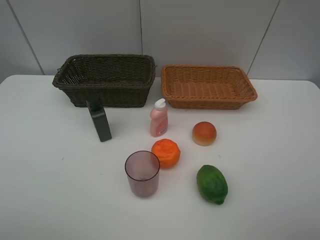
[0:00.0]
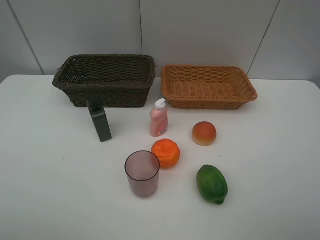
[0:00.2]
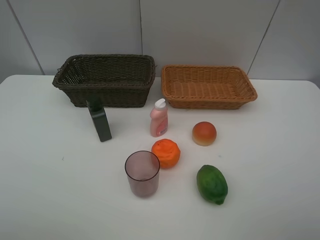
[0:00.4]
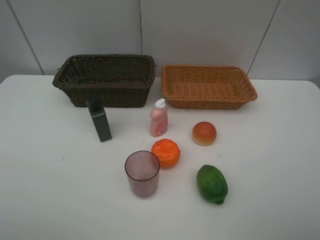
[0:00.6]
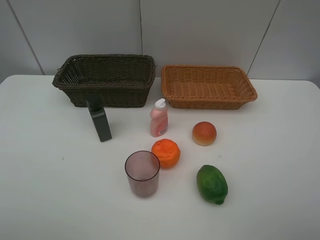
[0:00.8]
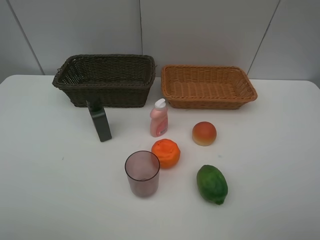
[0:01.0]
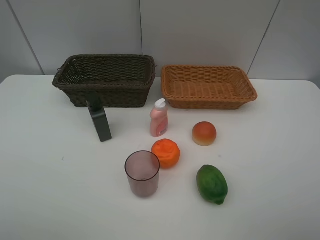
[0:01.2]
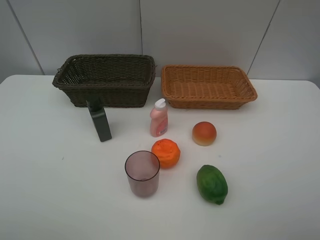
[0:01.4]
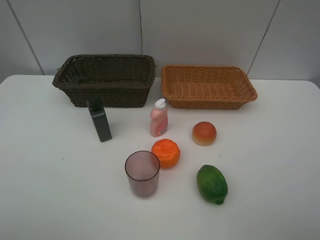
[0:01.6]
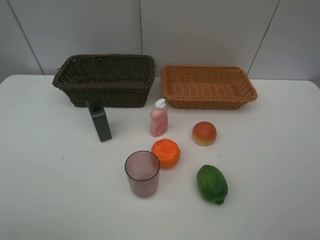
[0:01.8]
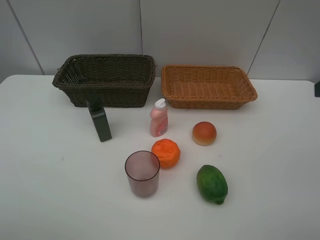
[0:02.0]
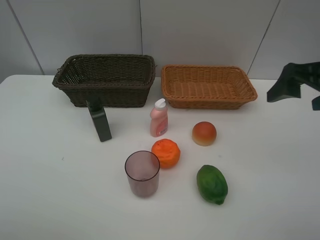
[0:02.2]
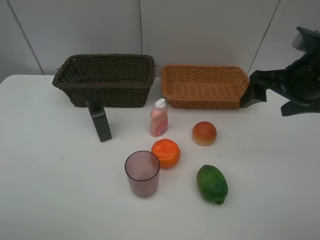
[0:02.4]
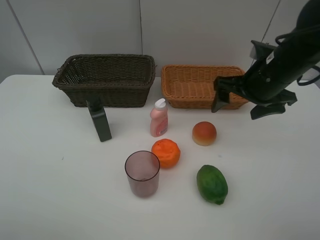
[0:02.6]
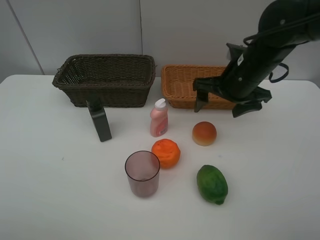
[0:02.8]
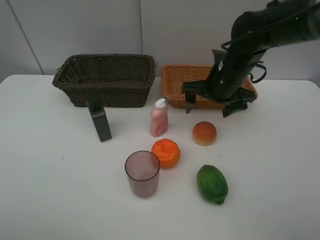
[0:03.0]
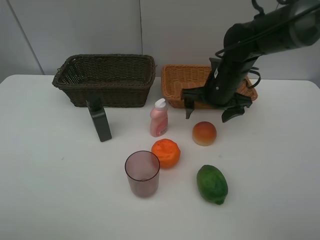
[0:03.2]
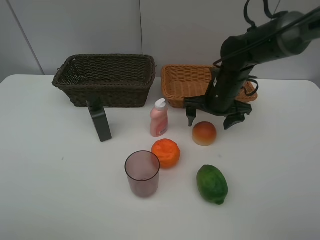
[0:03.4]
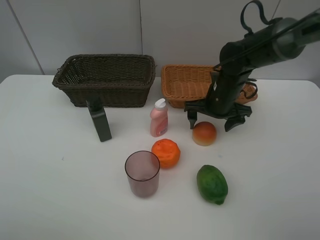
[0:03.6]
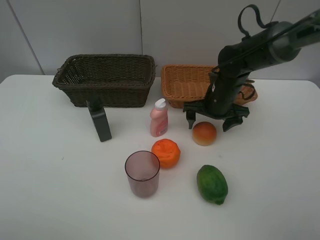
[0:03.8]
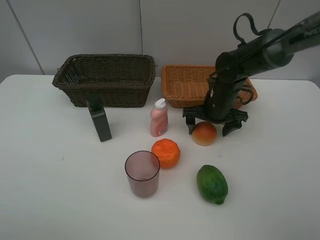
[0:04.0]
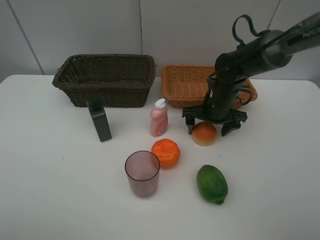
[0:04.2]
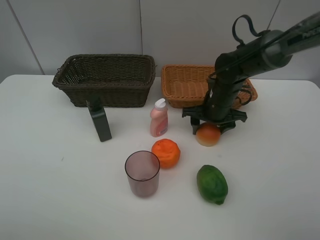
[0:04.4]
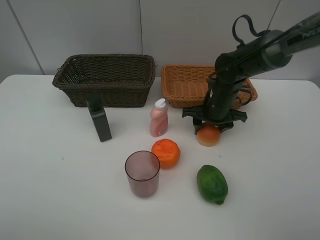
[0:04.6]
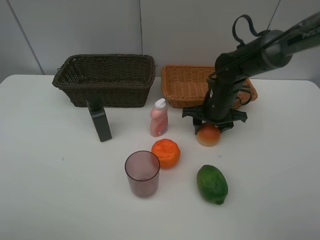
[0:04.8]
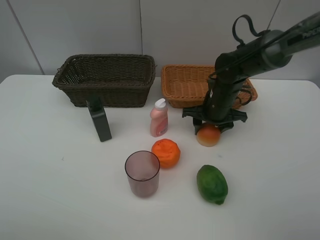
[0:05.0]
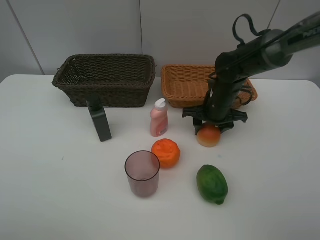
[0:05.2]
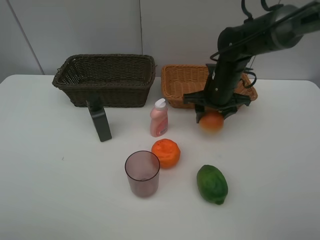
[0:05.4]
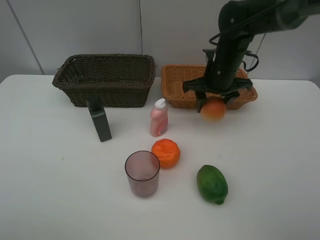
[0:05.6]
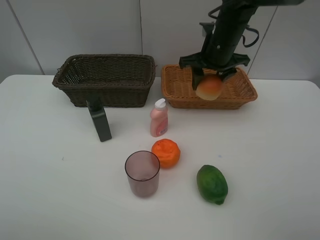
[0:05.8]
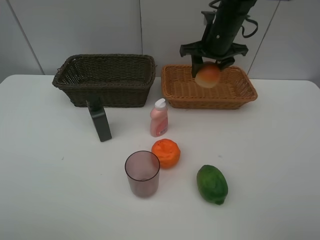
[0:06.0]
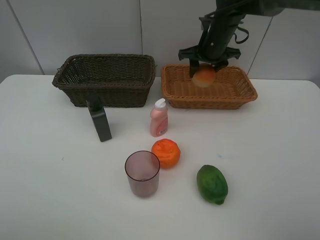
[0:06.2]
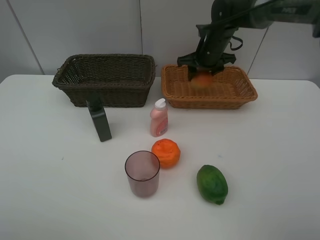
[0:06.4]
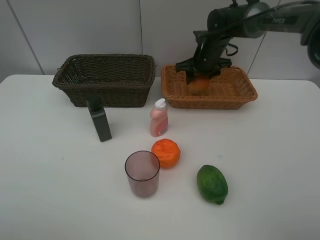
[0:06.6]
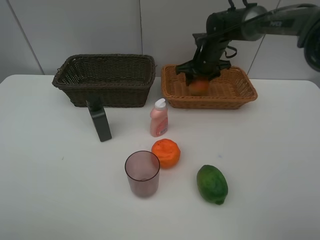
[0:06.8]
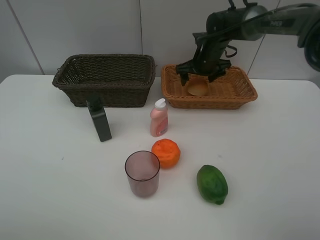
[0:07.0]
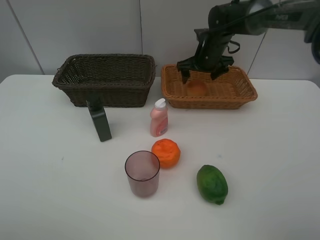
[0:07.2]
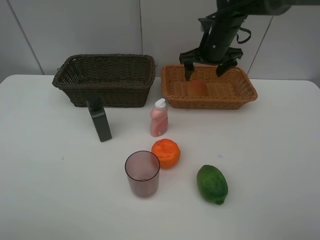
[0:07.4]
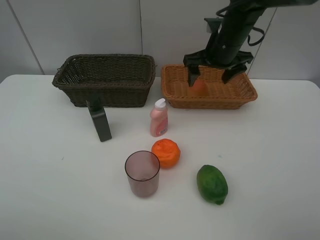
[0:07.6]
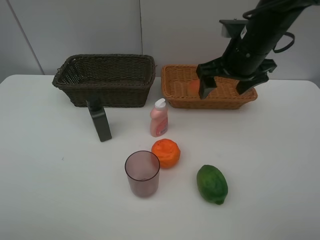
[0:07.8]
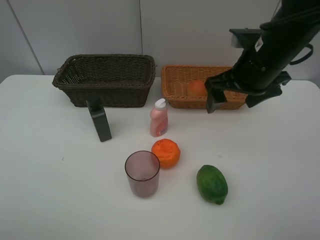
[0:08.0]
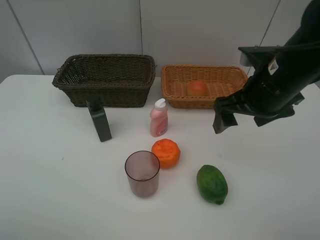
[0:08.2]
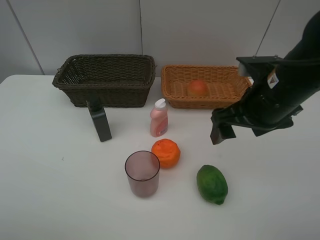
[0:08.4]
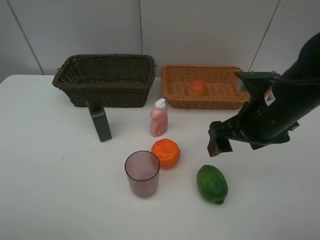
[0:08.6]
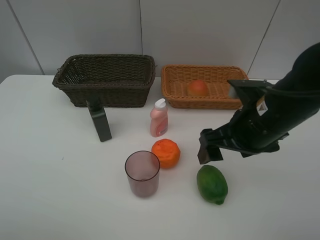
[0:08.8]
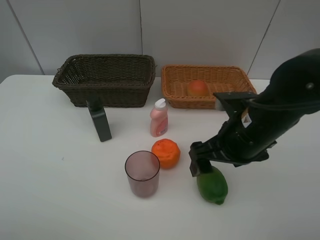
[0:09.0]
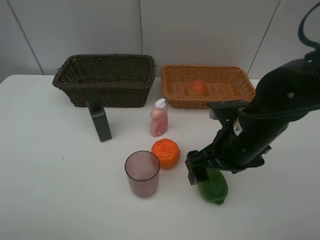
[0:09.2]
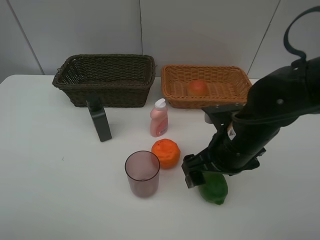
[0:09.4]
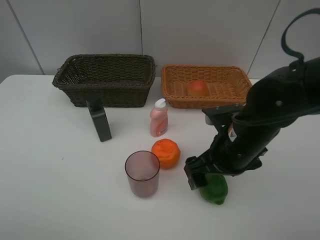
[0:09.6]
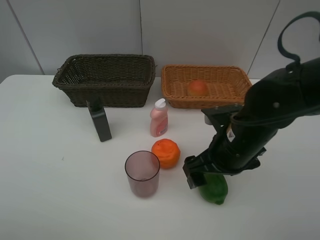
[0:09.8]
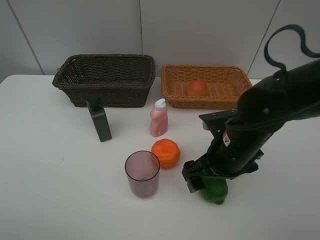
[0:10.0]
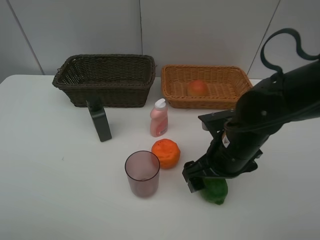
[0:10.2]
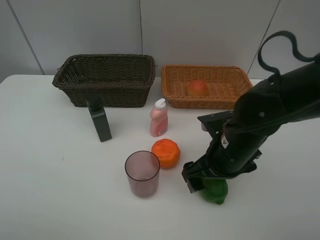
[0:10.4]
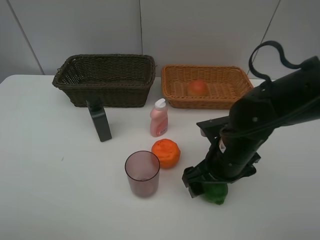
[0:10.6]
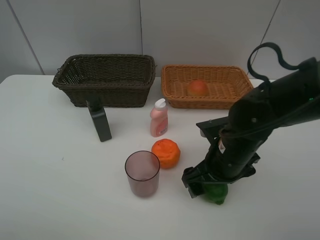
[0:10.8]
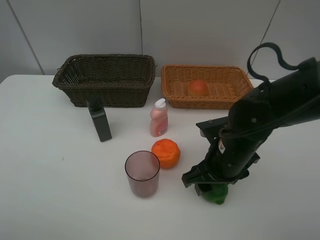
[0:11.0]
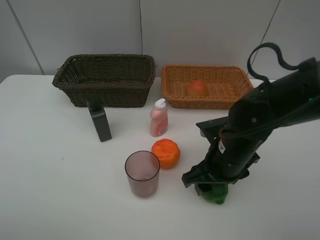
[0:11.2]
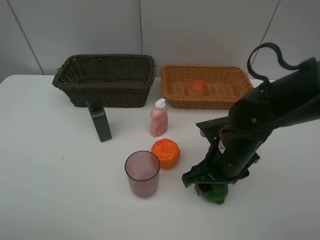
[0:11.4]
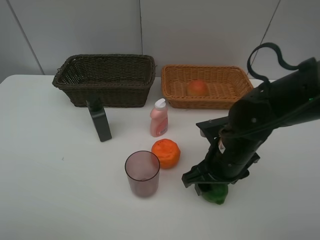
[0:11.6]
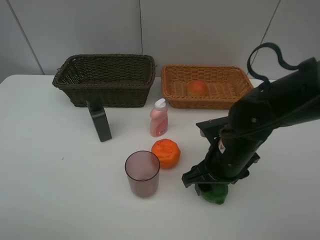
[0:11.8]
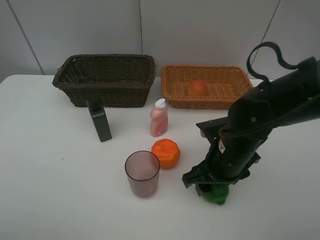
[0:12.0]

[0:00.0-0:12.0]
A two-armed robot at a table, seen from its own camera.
Task of the whole recording: place multiple objects separately in different baskets.
Step, 0:00.0 to 0:05.4: Pick up the bread with right gripper.
Step, 0:05.6 to 0:07.4: Place the bread in the light basket with right gripper.
0:01.6 to 0:03.0: The right gripper moves forward, to the left and downward, about 35 cm.
0:03.0 to 0:04.4: The right gripper heads downward, covering some 10 cm, and closes its fingers.
0:04.4 to 0:06.0: The right gripper is displaced upward and forward by roughly 15 cm.
0:06.0 to 0:07.6: The right gripper opens up.
0:07.6 to 0:09.0: The right gripper is displaced backward by about 20 cm.
0:09.0 to 0:10.4: The grippers make only small movements.
0:10.4 to 0:12.0: The right gripper closes up.

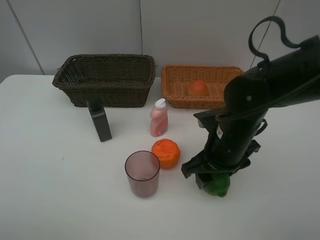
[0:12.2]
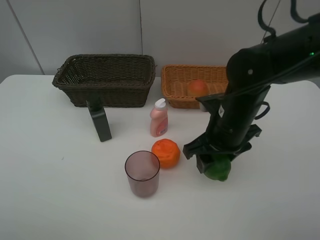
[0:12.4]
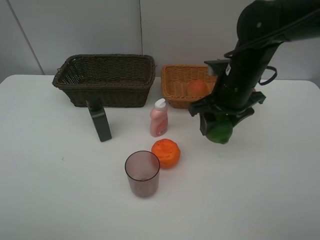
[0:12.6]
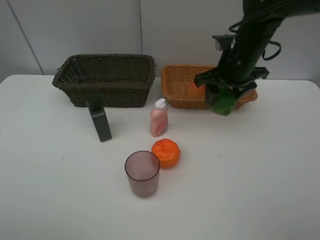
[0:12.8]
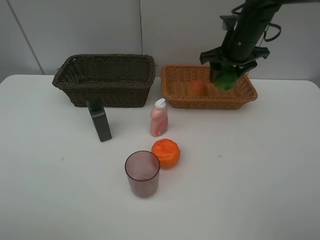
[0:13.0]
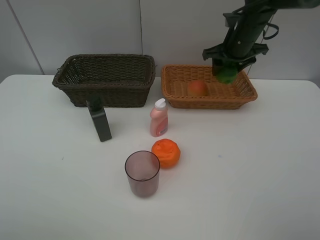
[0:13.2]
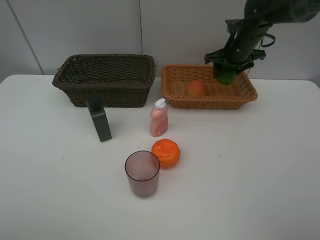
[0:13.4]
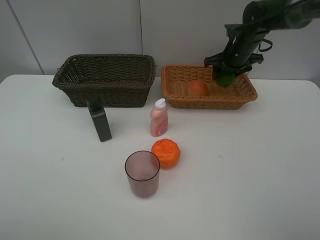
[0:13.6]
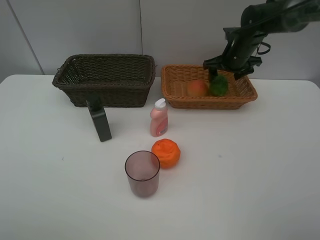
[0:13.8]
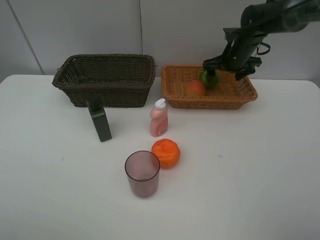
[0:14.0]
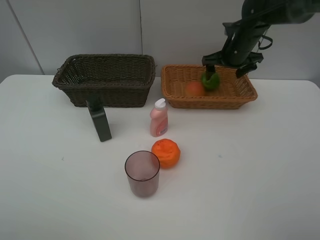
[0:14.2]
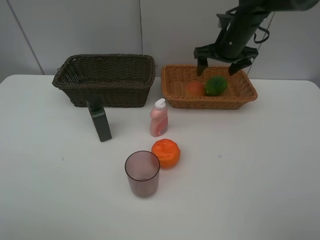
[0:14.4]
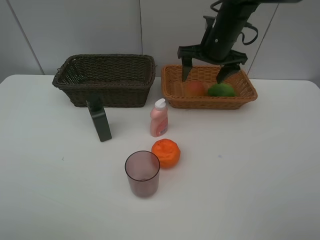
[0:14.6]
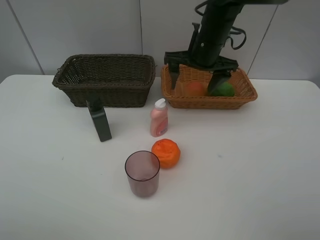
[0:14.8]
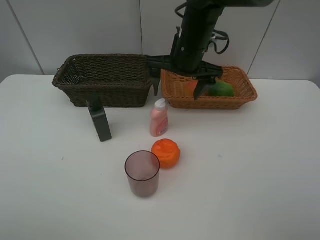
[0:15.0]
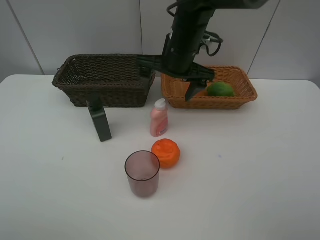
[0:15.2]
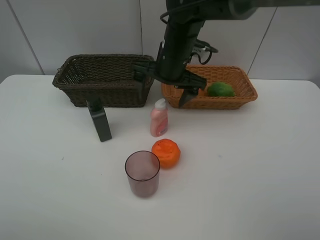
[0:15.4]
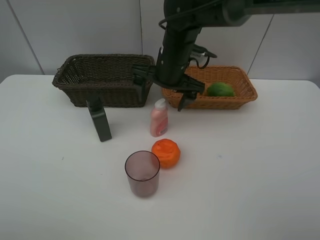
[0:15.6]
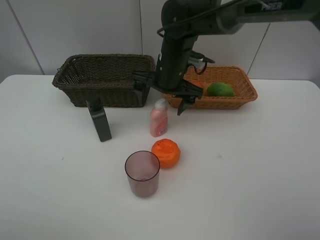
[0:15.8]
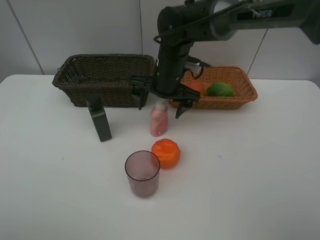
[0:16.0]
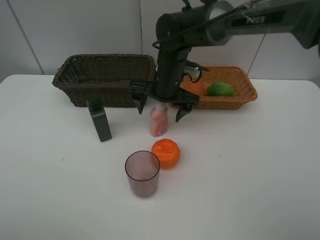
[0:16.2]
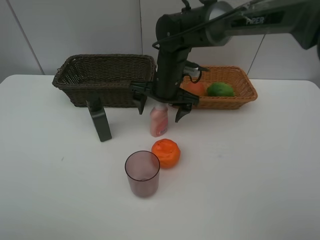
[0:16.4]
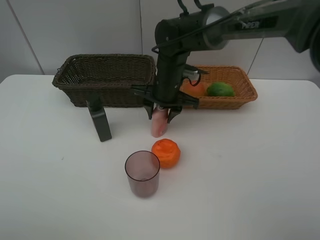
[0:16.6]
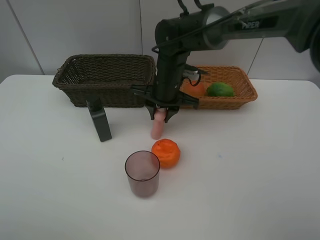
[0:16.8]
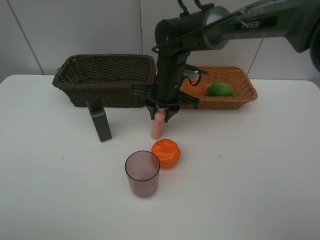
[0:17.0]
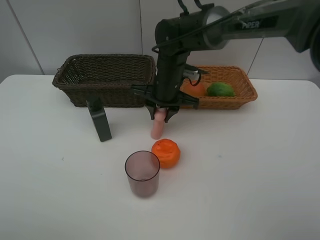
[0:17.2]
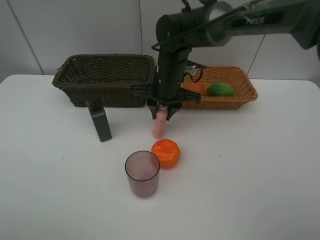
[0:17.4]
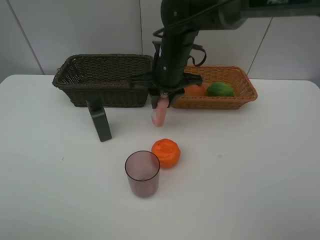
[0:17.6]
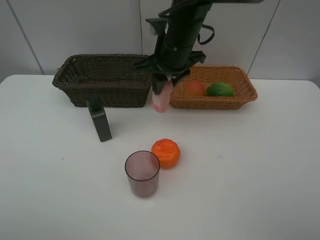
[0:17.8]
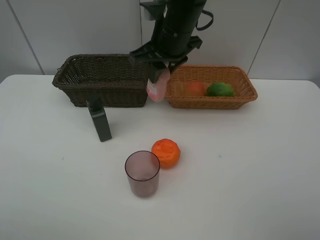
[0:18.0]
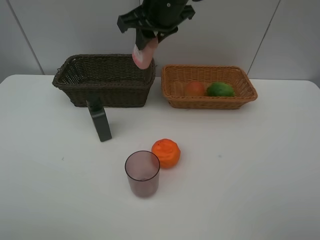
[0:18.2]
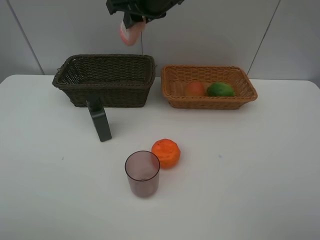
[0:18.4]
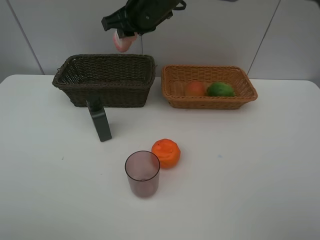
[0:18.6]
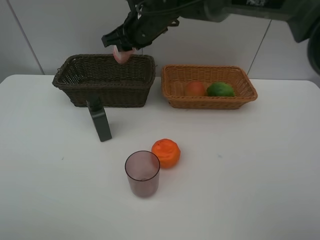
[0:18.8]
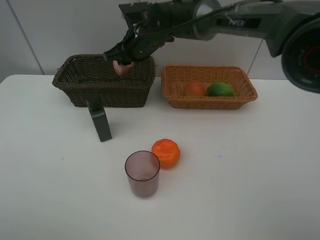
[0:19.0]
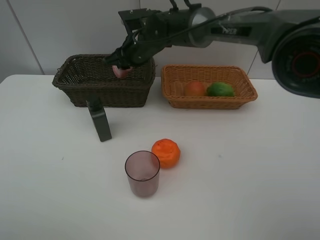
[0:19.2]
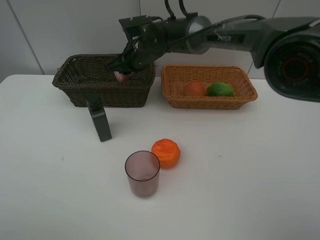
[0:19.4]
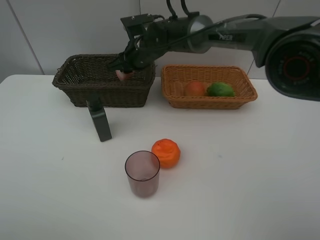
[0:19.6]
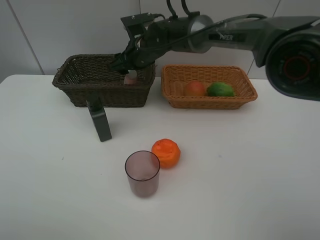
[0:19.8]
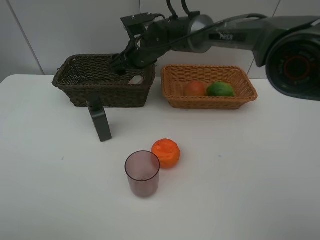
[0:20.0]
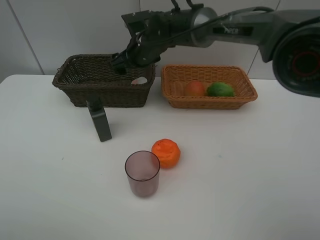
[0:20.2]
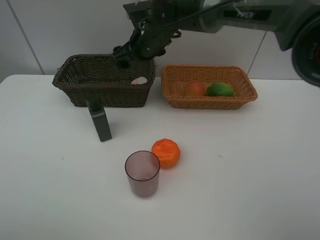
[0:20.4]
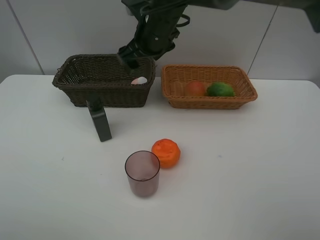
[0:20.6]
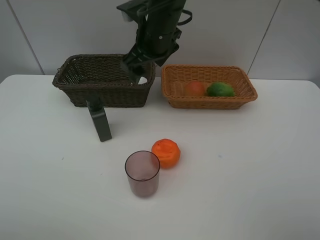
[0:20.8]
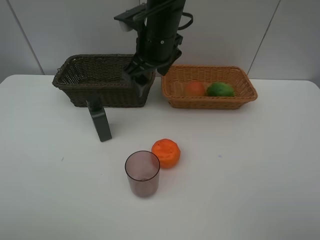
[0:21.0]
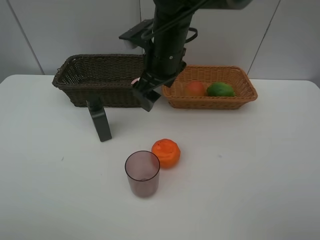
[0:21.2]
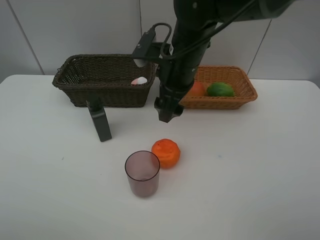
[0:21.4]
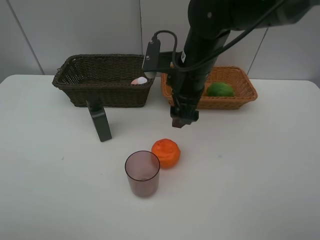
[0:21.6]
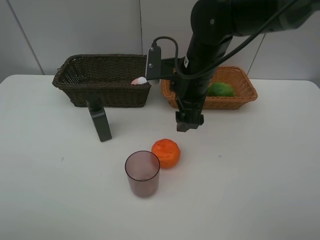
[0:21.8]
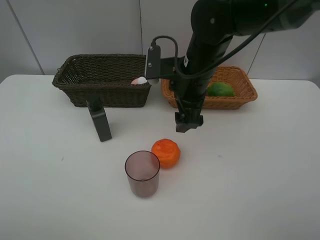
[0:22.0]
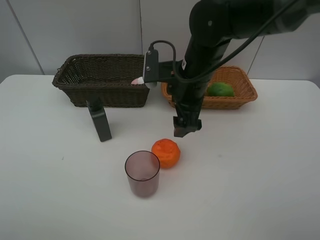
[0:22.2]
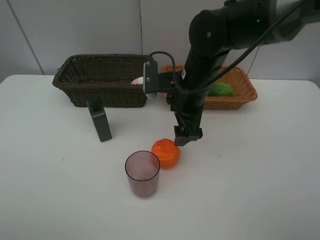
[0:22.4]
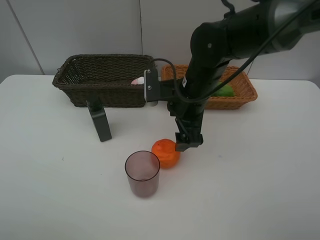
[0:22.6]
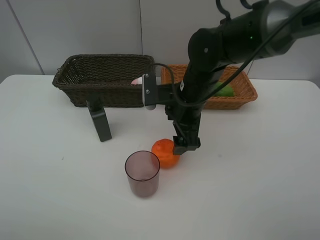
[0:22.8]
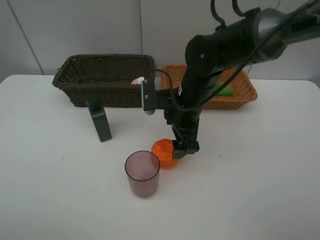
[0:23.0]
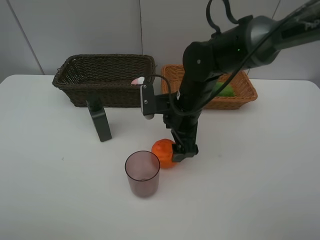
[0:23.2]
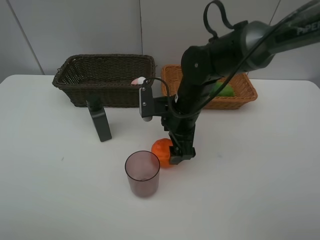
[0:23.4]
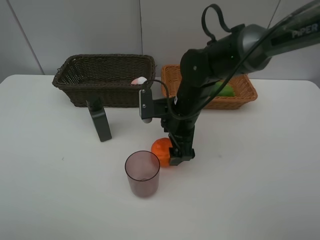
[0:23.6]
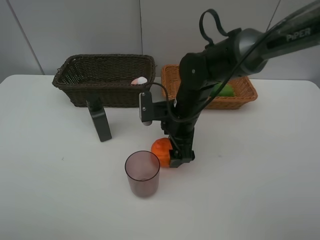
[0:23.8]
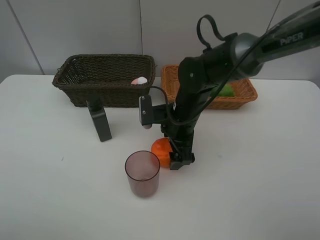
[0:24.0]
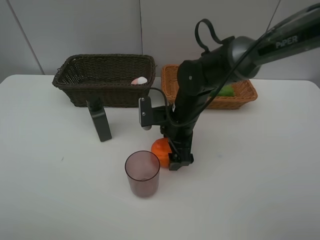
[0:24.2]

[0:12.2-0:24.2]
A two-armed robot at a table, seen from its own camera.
Task of the whole recording: place multiple objects separately in different baskets.
Step, 0:12.6 to 0:14.4: Place the lime in the light basket with right gripper.
Step, 0:14.6 to 0:17.4: Pick up the laundry detergent with right gripper.
Step, 0:17.6 to 0:20.4: Place the laundry detergent in the dark basket with right gripper.
0:12.2 to 0:13.8: The right gripper goes about 25 cm forward, and opens up.
0:13.8 to 0:15.2: The right gripper travels to the left and backward by about 20 cm.
0:15.2 to 0:16.6: The right gripper goes roughly 10 cm downward, and closes up.
0:16.6 to 0:18.2: The right gripper travels upward by some 15 cm.
0:18.2 to 0:19.8: The right gripper heads downward and forward, covering roughly 15 cm, and opens its fingers.
0:19.8 to 0:21.2: The right gripper travels backward and upward by approximately 15 cm.
0:21.2 to 0:22.6: The right gripper is displaced downward and to the right by some 10 cm.
0:22.6 to 0:24.2: The right gripper is displaced downward by roughly 5 cm.
